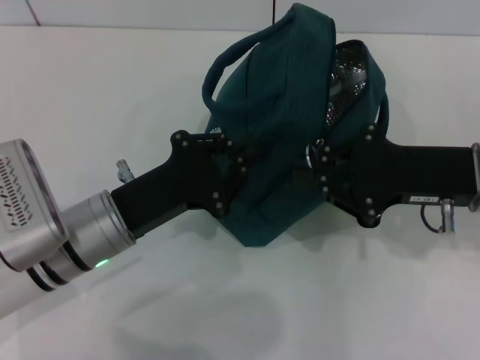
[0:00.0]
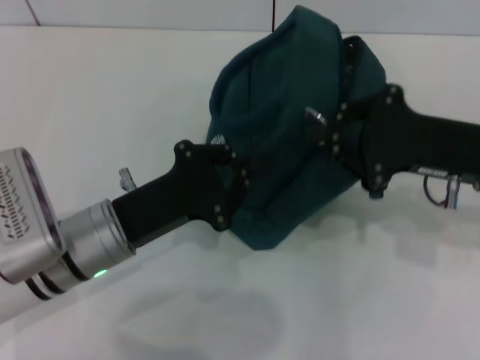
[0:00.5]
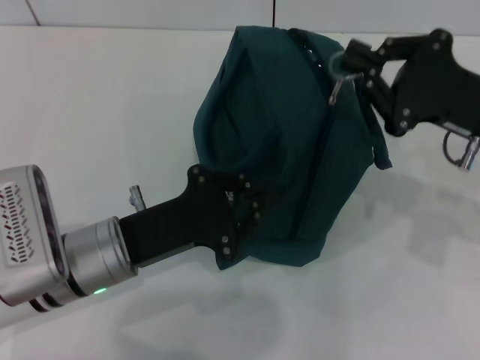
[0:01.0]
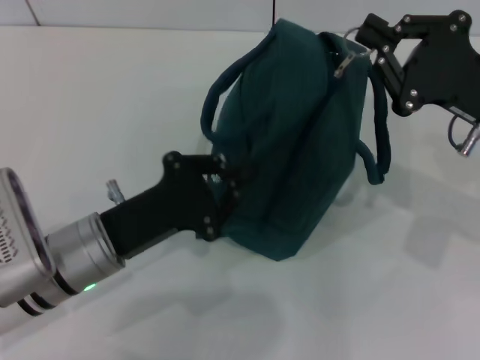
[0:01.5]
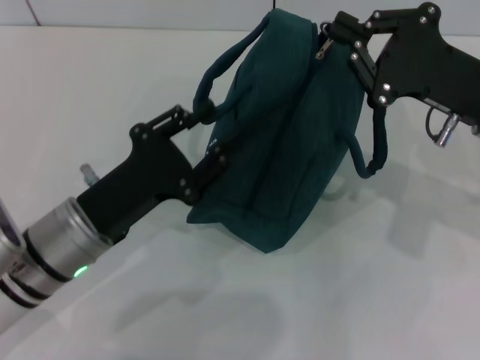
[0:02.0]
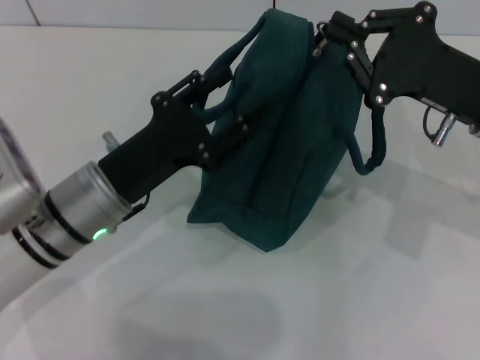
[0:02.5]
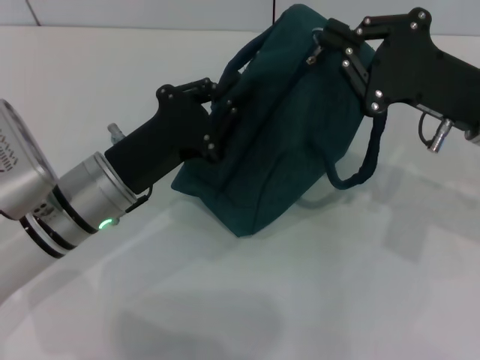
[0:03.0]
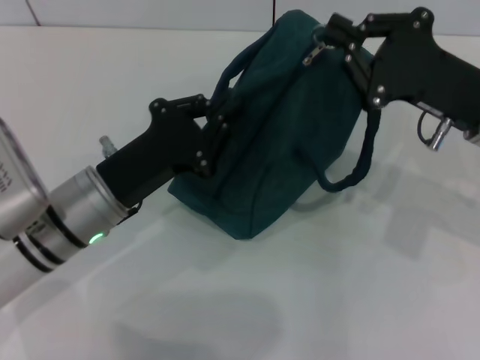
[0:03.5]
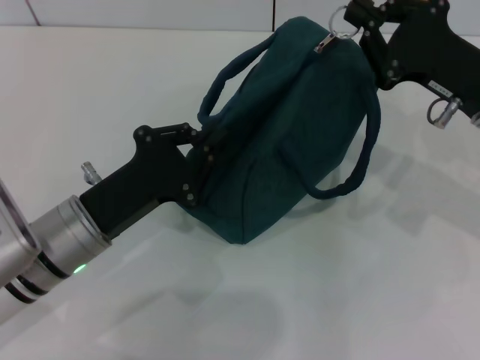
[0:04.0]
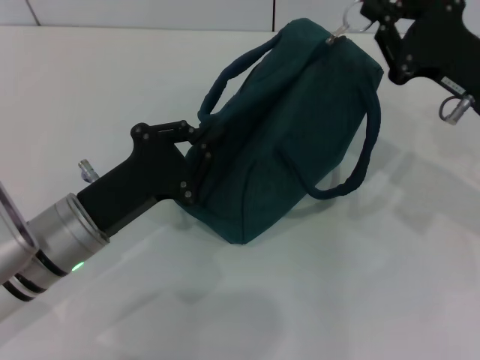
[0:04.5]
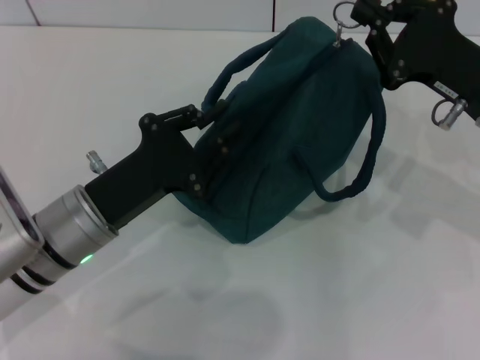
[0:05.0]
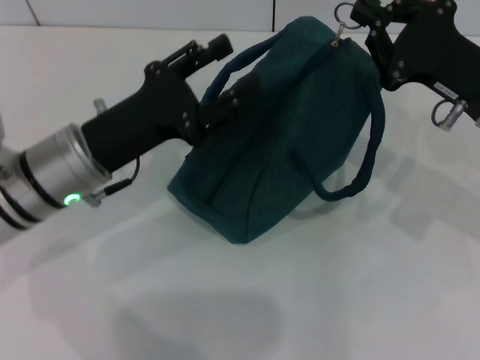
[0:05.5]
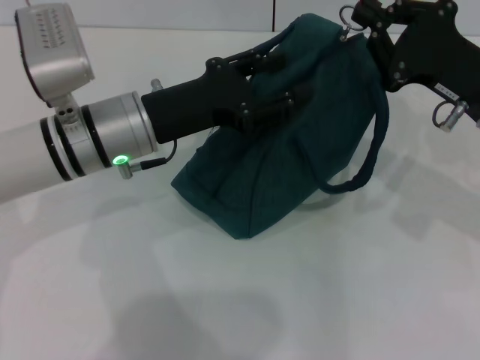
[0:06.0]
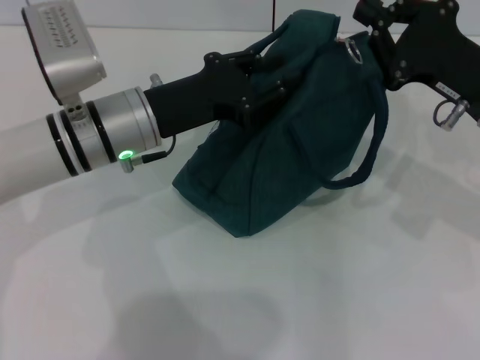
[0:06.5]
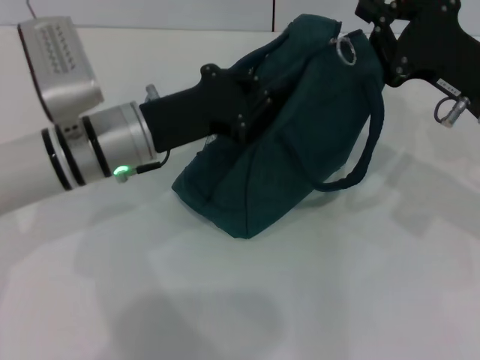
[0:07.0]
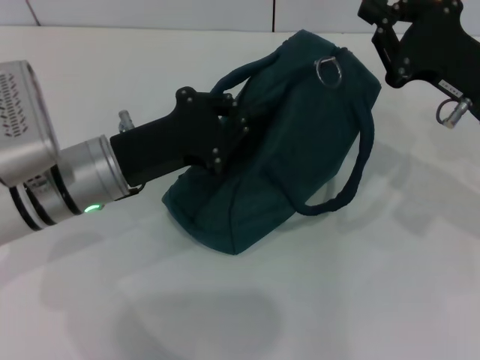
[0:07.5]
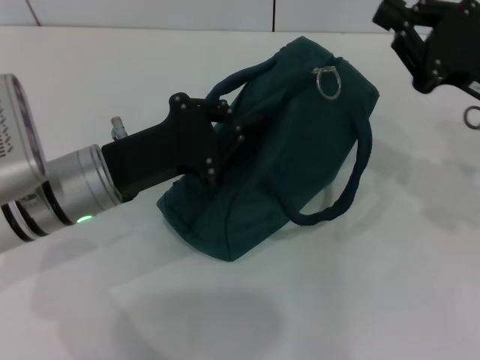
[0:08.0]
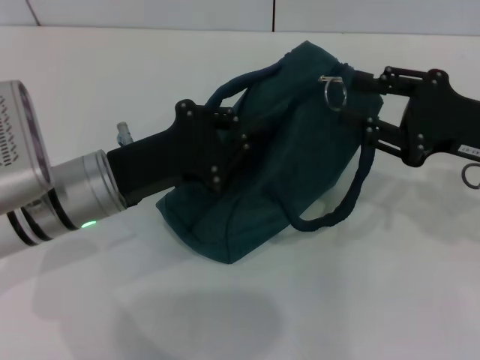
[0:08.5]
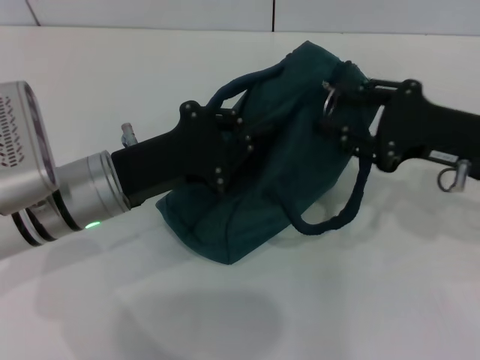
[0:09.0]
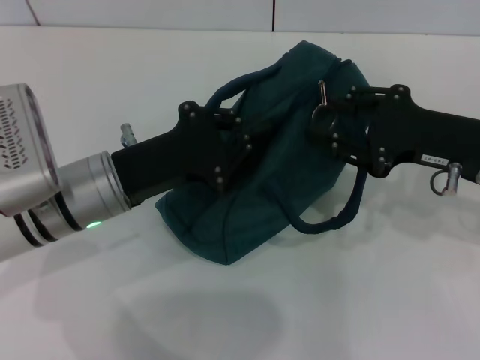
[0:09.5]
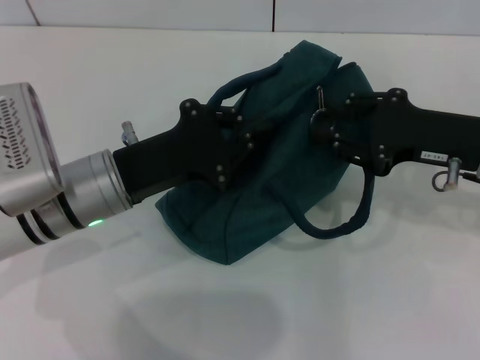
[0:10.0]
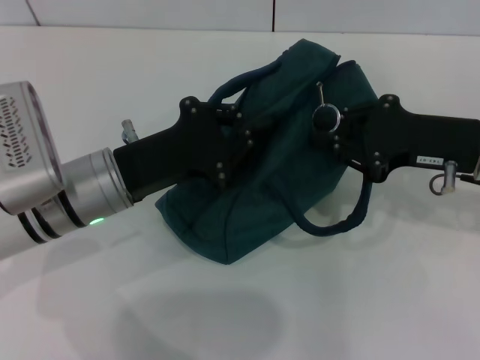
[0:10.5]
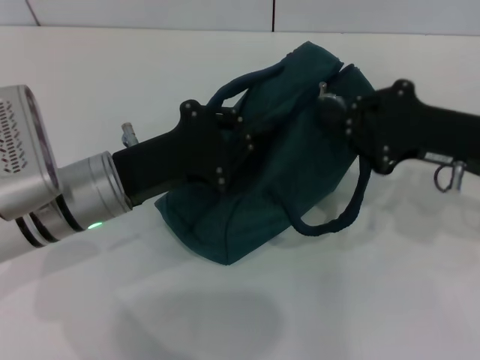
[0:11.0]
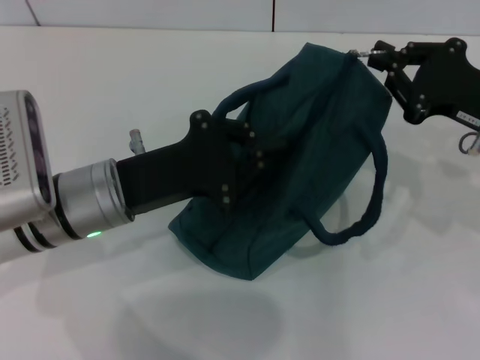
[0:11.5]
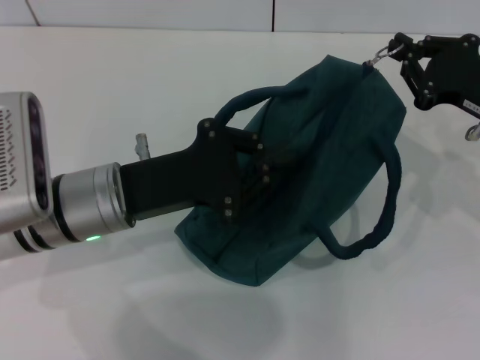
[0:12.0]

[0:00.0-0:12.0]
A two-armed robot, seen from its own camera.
0:02.0 to 0:04.0: The left gripper opens, then closes once more.
0:04.0 to 0:06.0: The left gripper goes approximately 10 cm forward and upward, and opens up.
0:06.0 to 0:08.0: The left gripper changes place by some 5 cm, and closes.
0:08.0 to 0:10.0: The right gripper opens.
0:10.0 to 0:12.0: The right gripper closes.

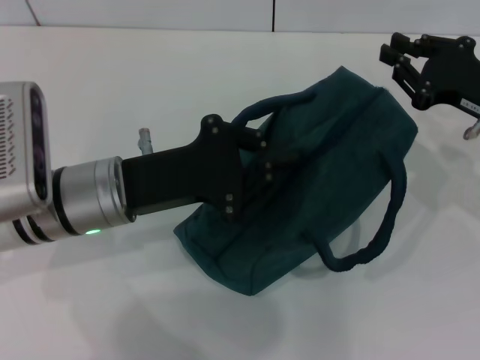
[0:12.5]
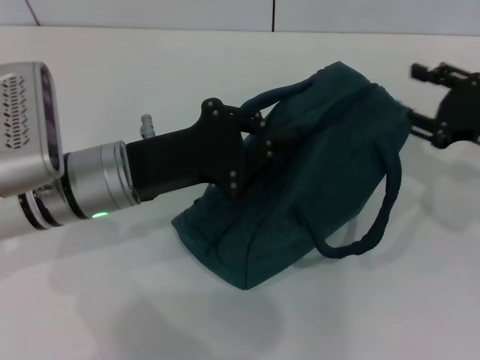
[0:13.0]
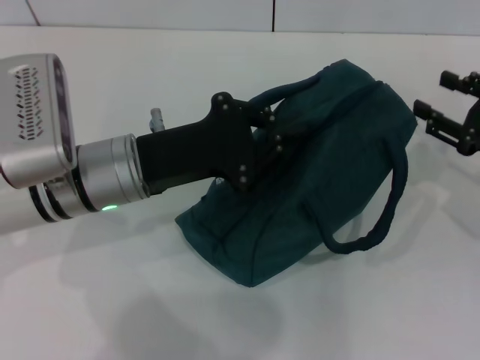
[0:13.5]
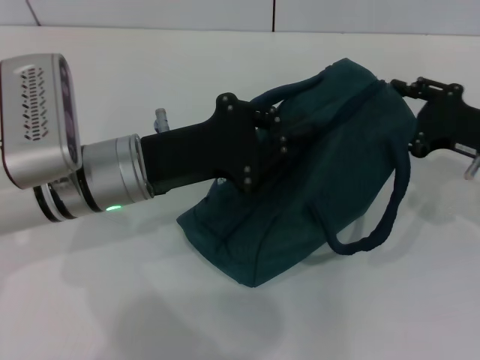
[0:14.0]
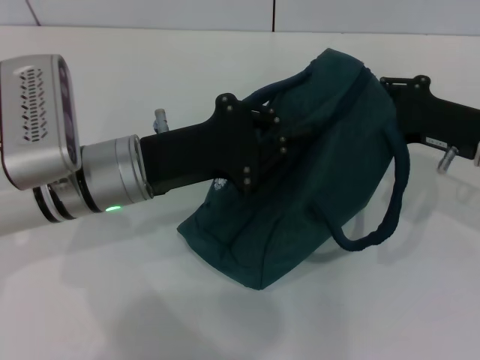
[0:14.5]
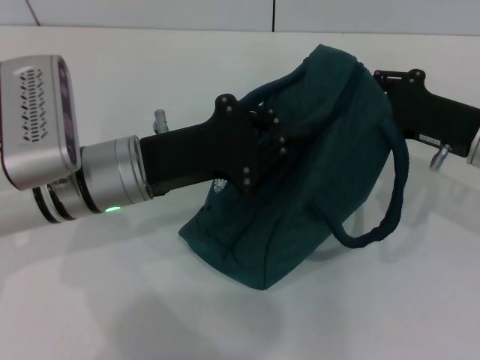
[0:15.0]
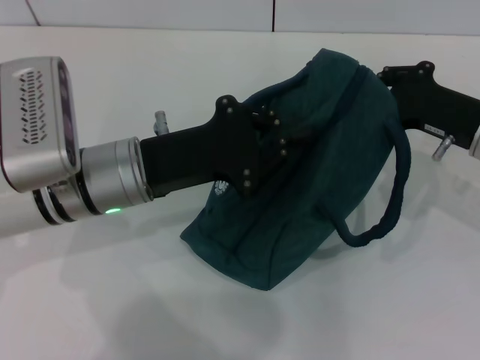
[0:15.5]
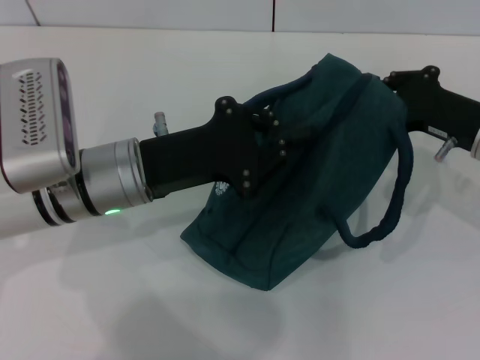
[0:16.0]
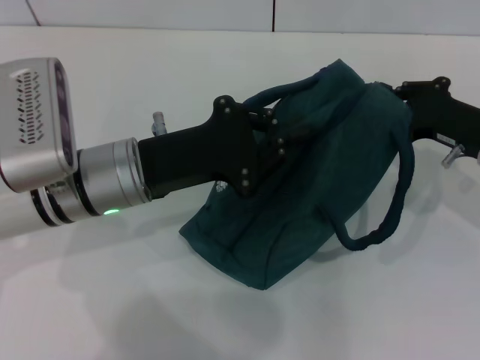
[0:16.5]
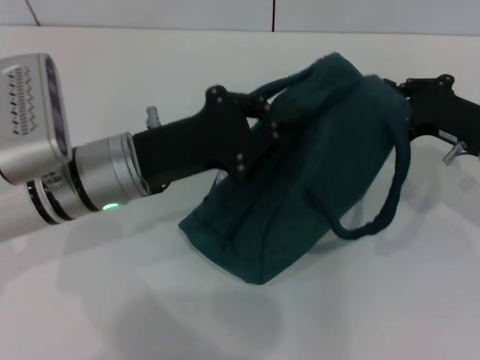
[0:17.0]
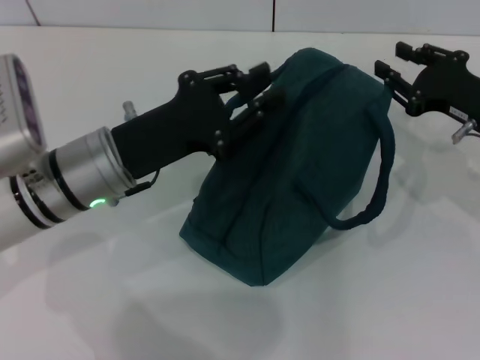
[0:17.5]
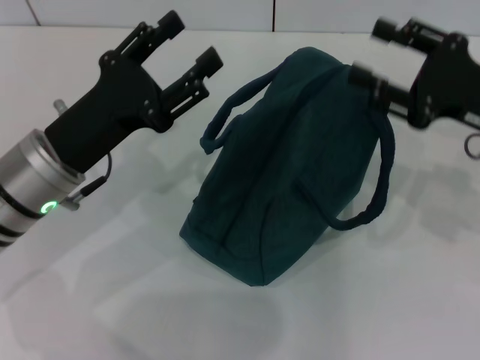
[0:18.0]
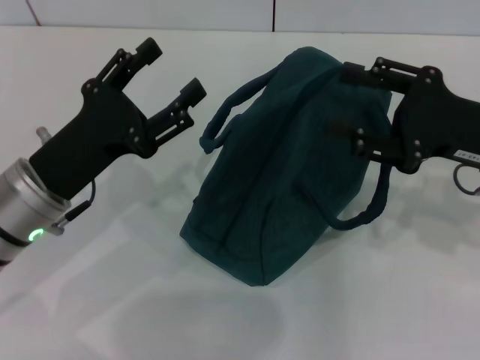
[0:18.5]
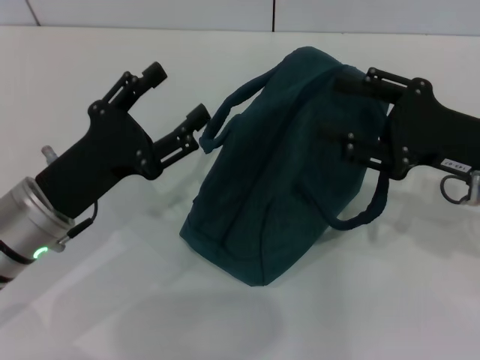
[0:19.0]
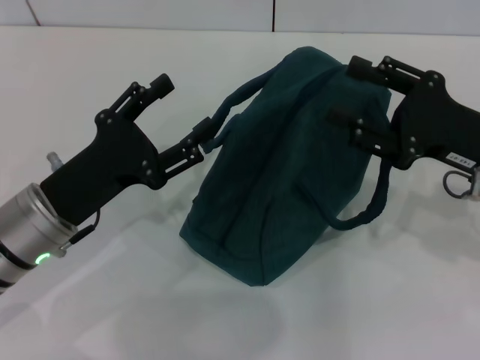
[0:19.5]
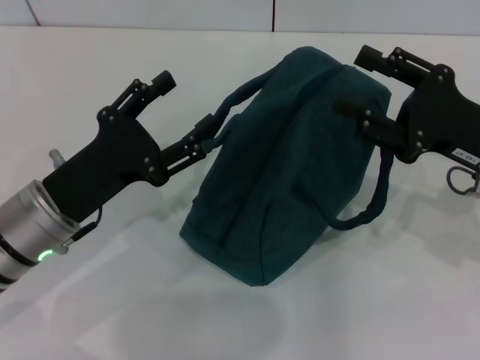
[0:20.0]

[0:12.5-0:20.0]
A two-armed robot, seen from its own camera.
Step, 0:12.5 to 0:17.0: Zip up the lunch bag with your right hand.
0:12.5 to 0:14.5: The right gripper opens up.
0:14.5 to 0:16.5: The right gripper closes its fingers.
0:16.5 to 0:18.0: The right gripper moves upward, approximately 5 cm, and opens its fingers; the left gripper travels to the left by roughly 5 cm, and opens up.
